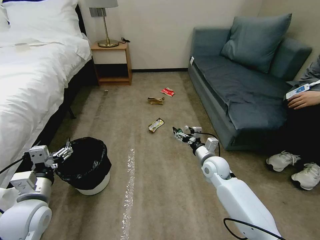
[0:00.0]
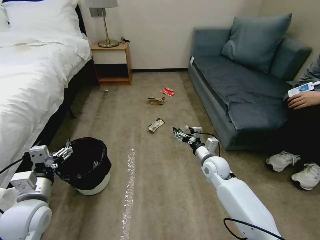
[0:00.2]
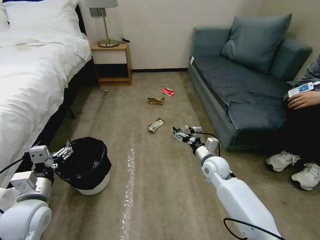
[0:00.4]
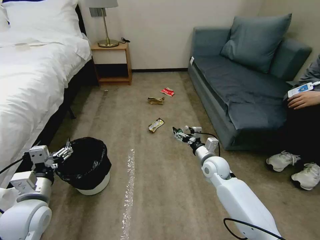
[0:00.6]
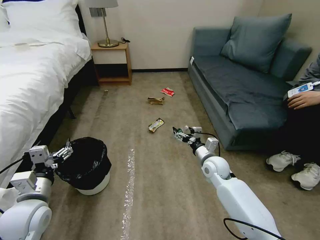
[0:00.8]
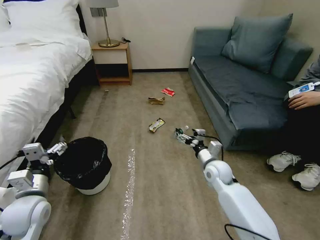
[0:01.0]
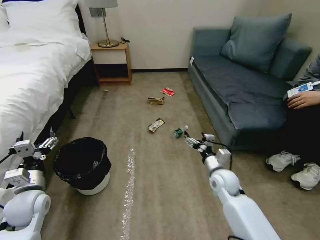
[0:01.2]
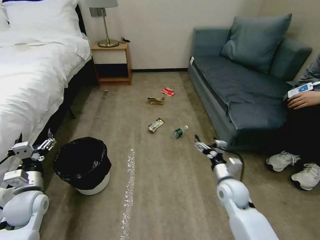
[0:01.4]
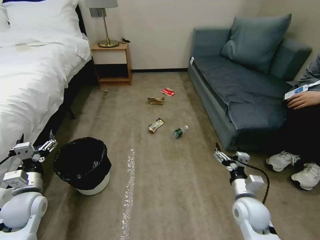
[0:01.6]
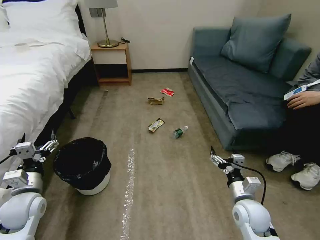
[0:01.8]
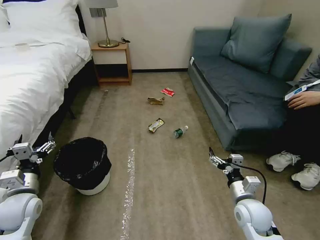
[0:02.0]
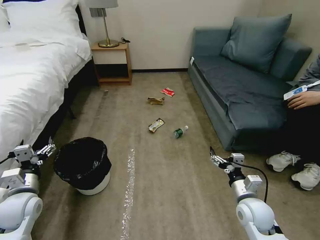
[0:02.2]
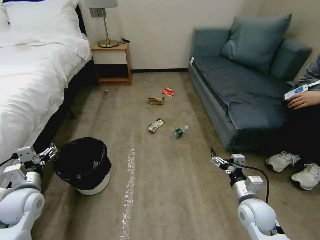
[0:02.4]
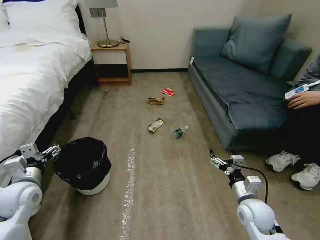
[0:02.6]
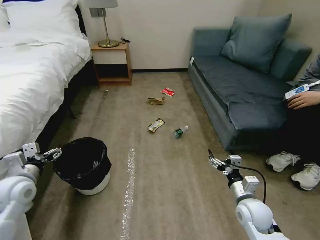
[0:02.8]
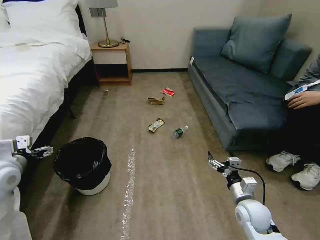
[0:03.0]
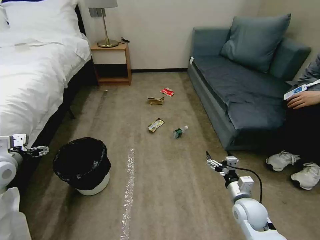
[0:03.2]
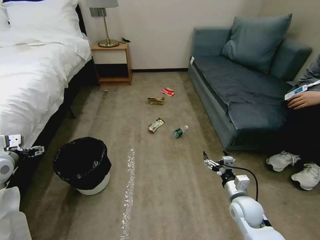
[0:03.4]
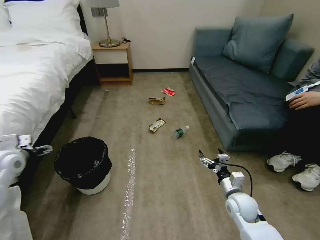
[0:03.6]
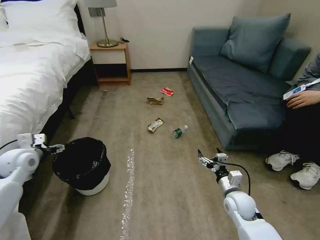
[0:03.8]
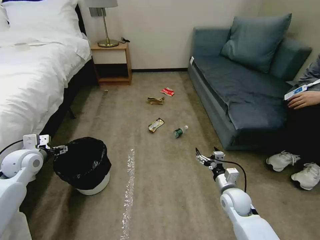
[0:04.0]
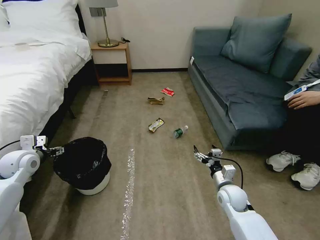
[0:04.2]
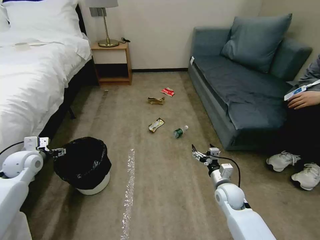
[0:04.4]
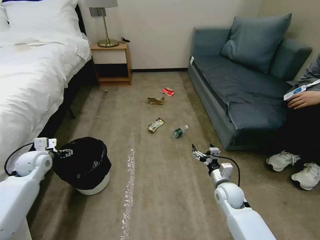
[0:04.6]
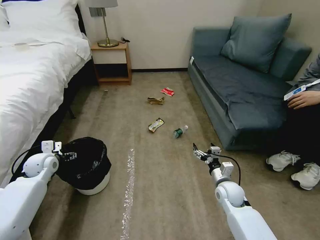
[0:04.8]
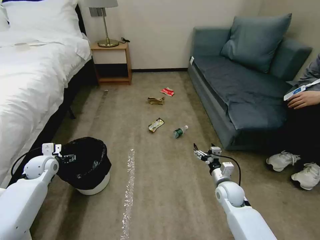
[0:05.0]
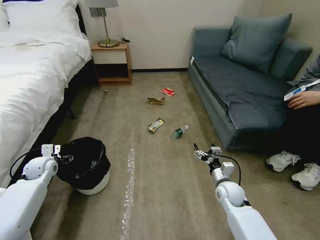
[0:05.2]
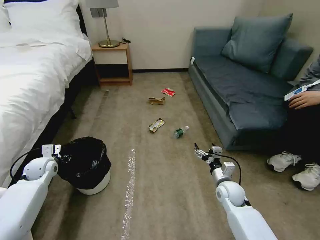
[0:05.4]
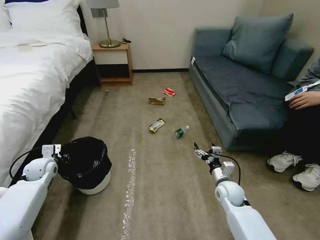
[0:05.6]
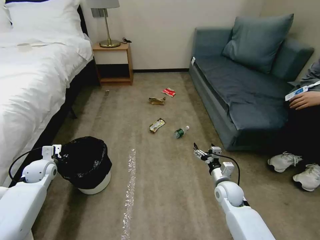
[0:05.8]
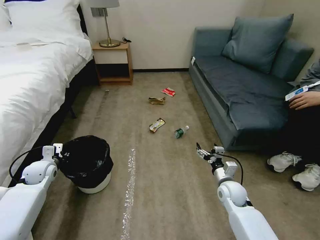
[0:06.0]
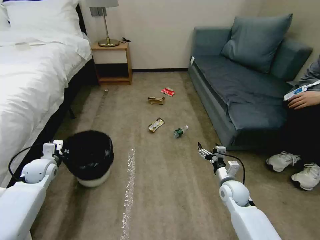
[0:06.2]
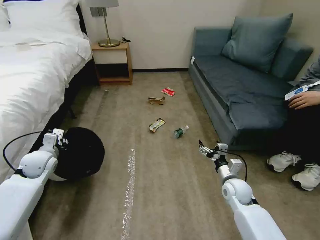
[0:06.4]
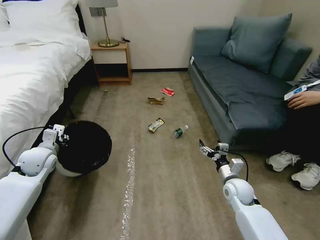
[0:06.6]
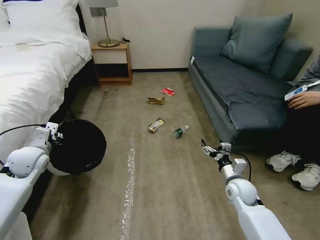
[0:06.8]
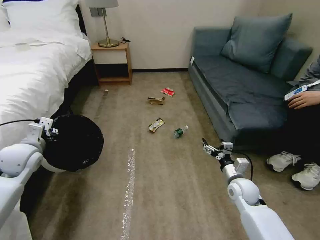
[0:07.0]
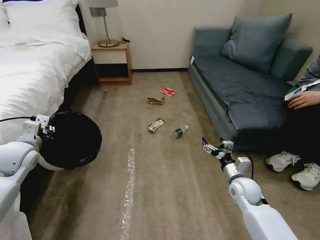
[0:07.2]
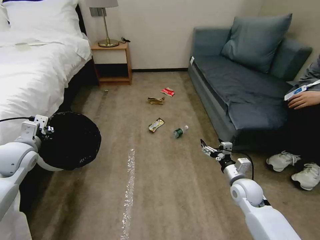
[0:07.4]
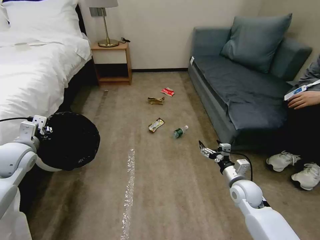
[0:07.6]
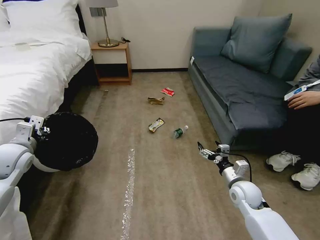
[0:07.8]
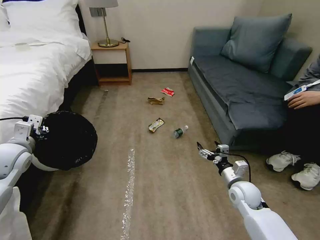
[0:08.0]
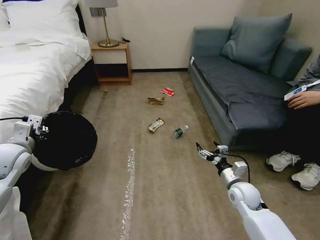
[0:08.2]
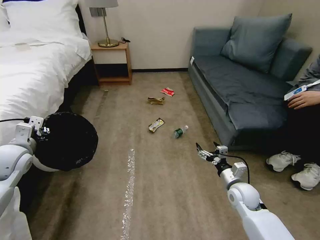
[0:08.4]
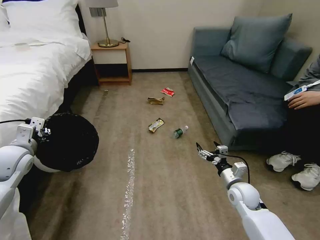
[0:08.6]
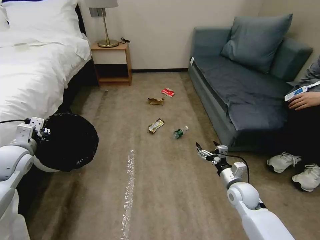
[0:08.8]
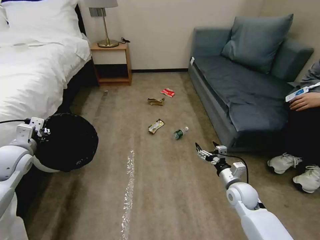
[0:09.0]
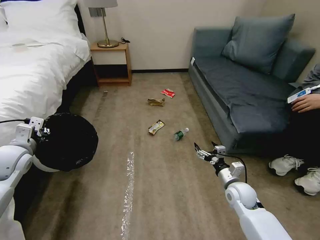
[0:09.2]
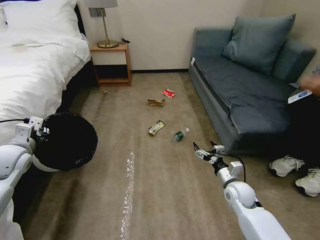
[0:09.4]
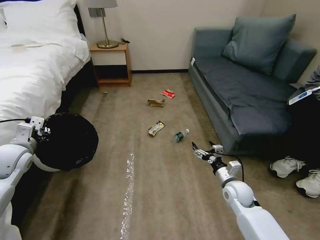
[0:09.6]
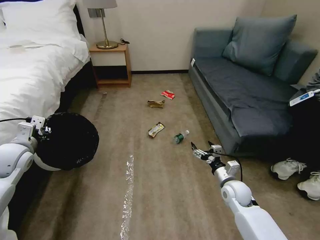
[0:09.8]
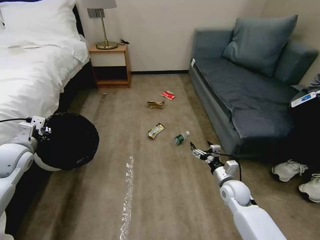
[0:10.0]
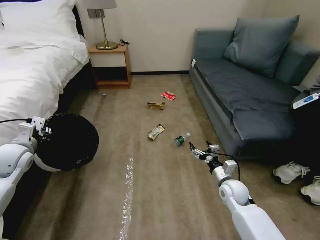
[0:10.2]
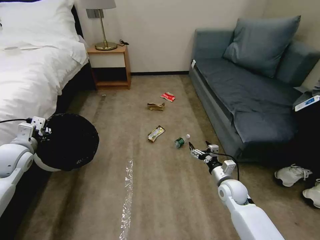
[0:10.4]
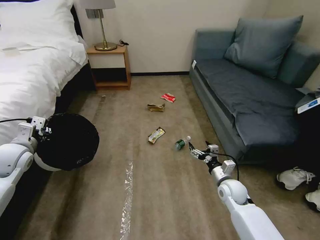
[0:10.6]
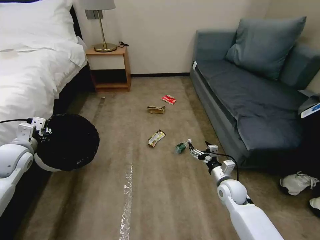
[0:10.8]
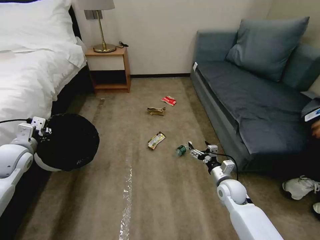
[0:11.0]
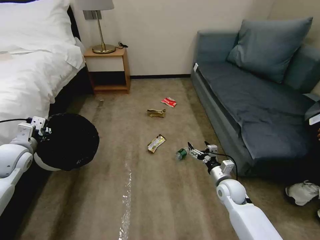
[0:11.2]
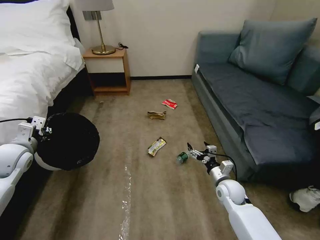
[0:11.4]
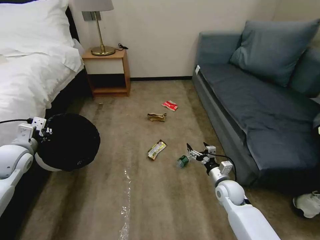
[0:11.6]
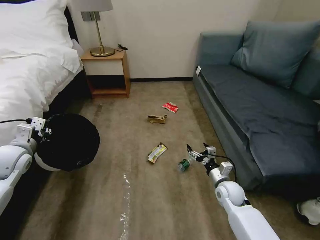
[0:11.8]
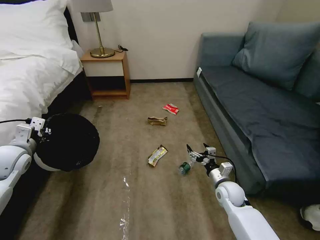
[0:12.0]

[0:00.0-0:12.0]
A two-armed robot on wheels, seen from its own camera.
Task of the whole recording: Pick up the trash bin, then pick up the garbage on the floor and place it into the trash bin.
0:01.6 to 0:03.0: The left gripper shifts some 10 cm upward.
0:03.0 to 0:04.4: The left gripper shifts about 10 cm forward and downward. The right gripper moves forward, about 5 cm.
0:04.4 to 0:06.0: The left gripper heads downward, covering about 10 cm, and closes its fingers.
0:06.0 to 0:07.6: The right gripper changes place by some 5 cm; the left gripper heads upward, covering roughly 15 cm.
0:07.6 to 0:10.4: The grippers move only a little.

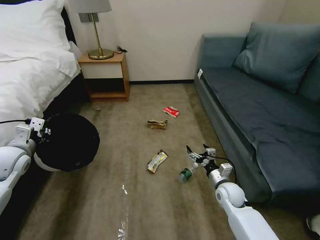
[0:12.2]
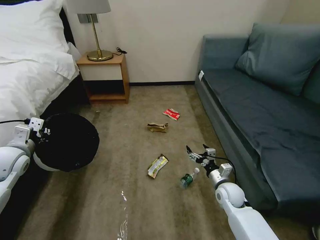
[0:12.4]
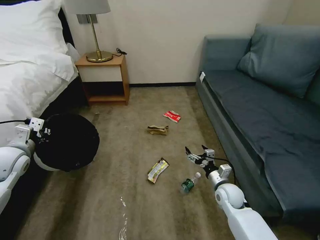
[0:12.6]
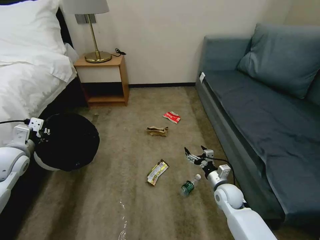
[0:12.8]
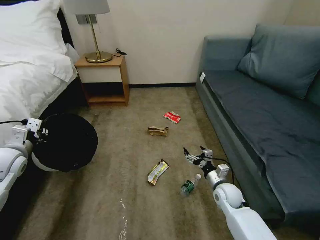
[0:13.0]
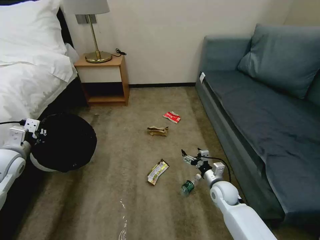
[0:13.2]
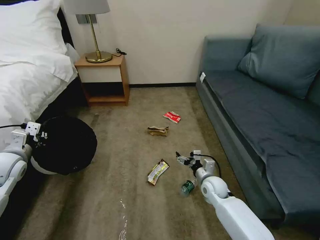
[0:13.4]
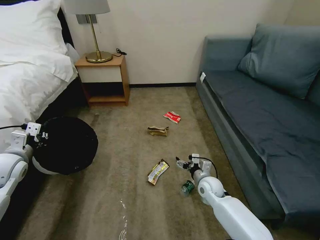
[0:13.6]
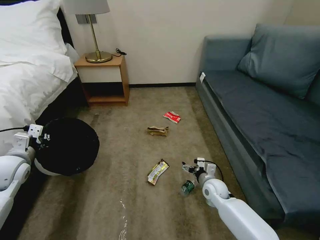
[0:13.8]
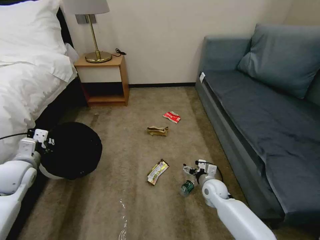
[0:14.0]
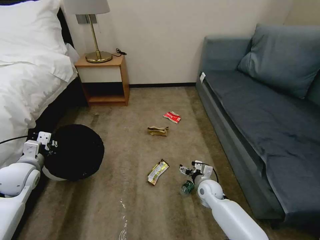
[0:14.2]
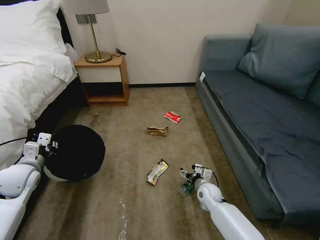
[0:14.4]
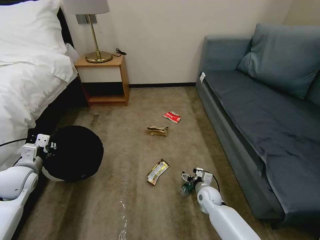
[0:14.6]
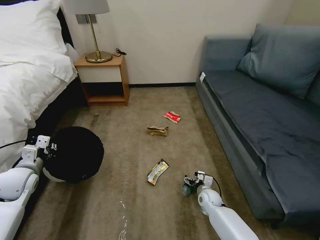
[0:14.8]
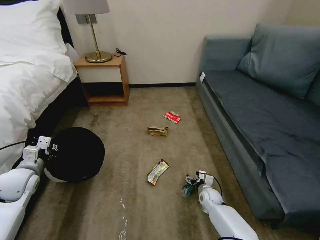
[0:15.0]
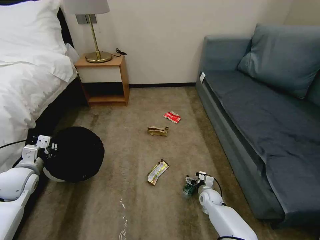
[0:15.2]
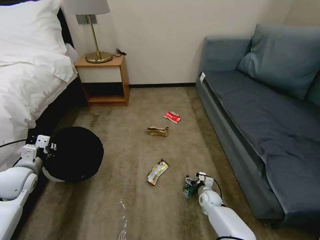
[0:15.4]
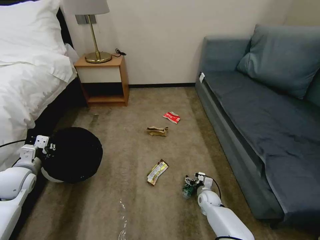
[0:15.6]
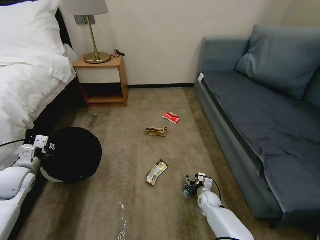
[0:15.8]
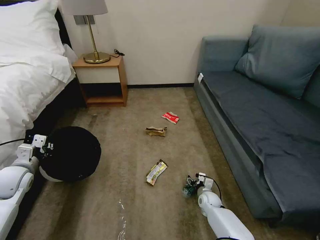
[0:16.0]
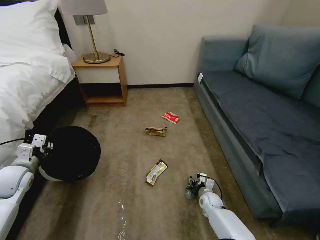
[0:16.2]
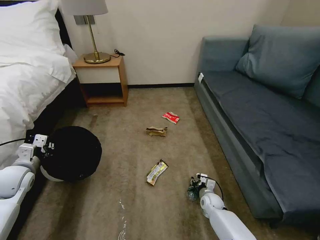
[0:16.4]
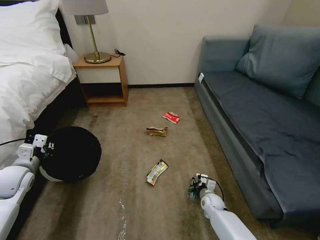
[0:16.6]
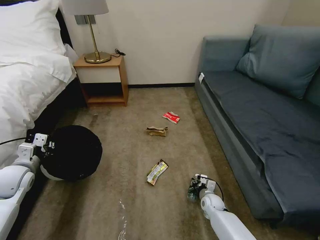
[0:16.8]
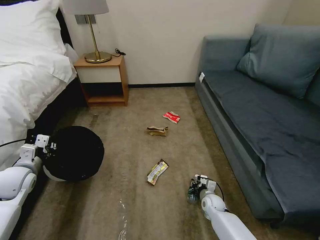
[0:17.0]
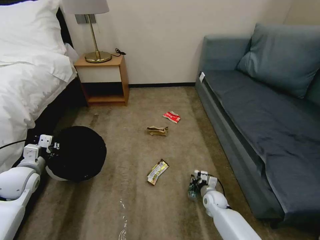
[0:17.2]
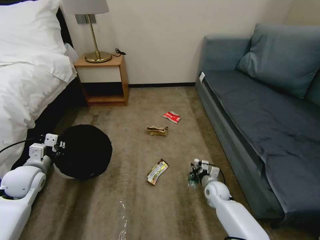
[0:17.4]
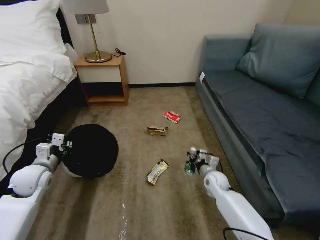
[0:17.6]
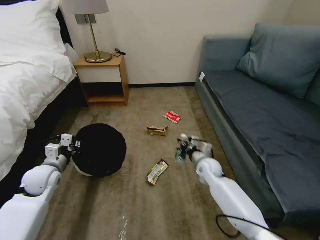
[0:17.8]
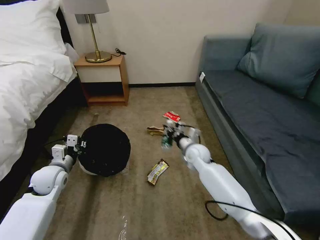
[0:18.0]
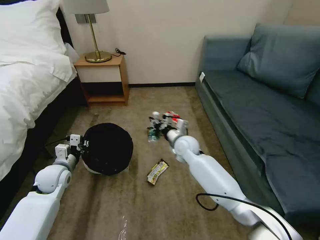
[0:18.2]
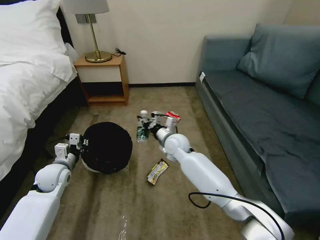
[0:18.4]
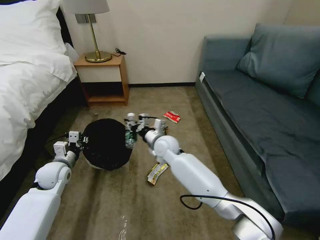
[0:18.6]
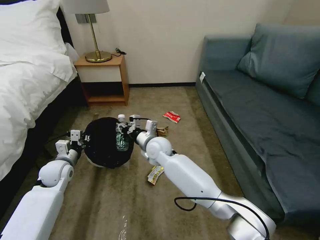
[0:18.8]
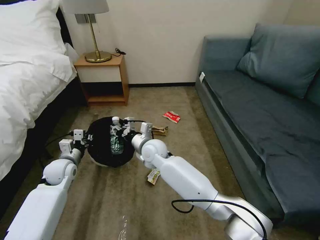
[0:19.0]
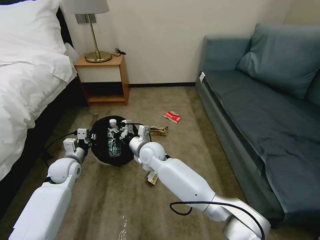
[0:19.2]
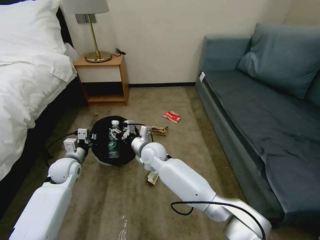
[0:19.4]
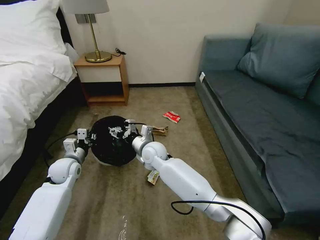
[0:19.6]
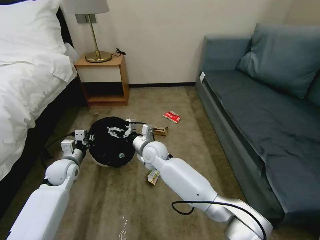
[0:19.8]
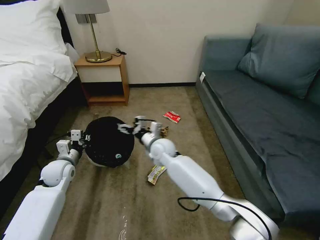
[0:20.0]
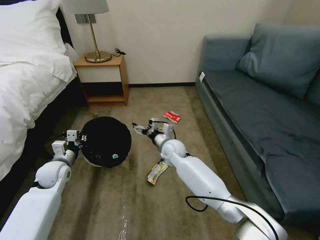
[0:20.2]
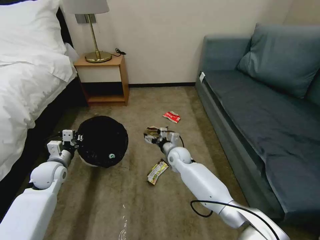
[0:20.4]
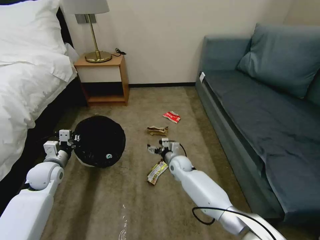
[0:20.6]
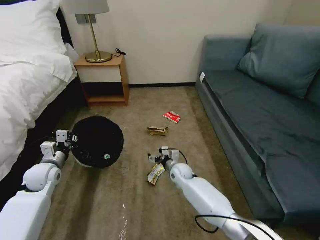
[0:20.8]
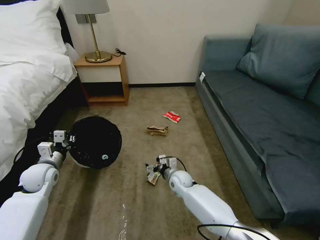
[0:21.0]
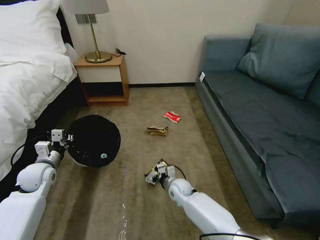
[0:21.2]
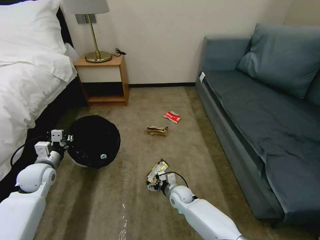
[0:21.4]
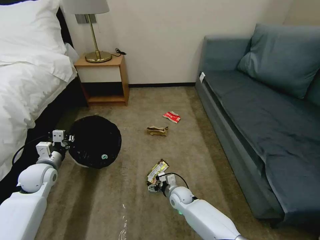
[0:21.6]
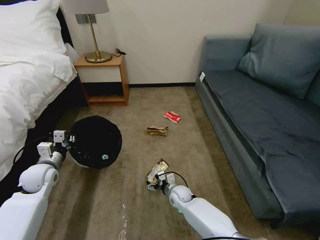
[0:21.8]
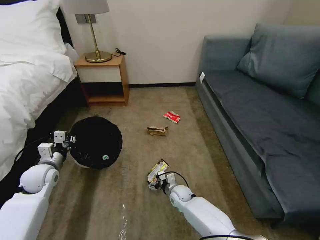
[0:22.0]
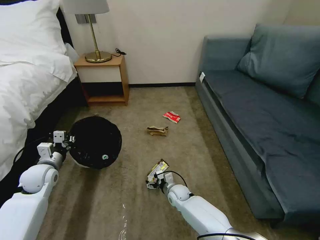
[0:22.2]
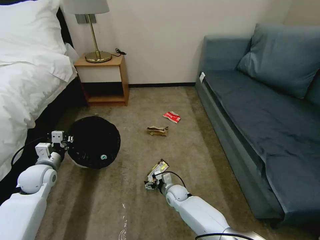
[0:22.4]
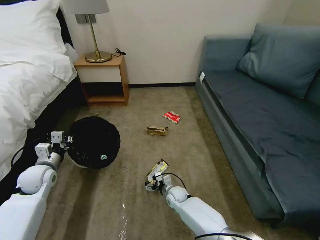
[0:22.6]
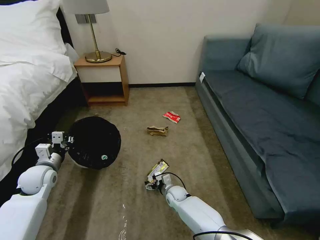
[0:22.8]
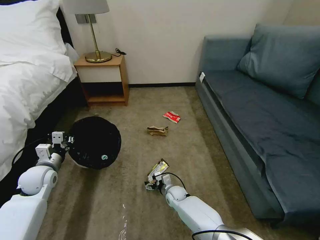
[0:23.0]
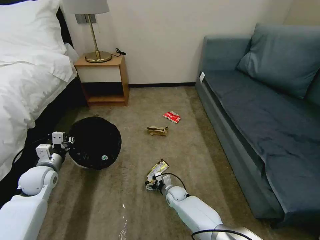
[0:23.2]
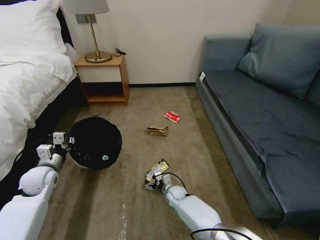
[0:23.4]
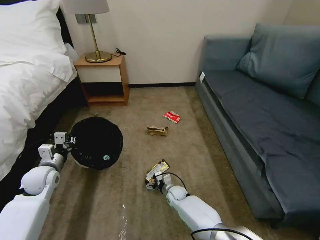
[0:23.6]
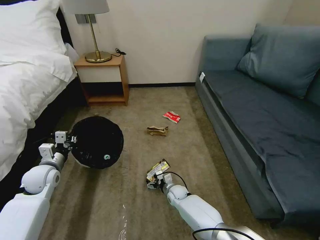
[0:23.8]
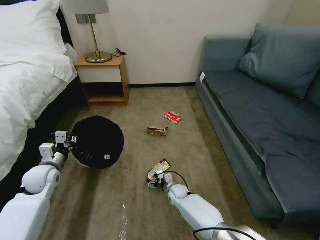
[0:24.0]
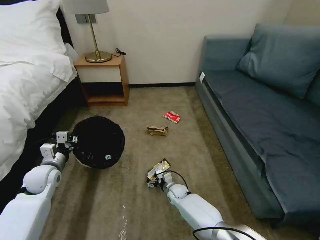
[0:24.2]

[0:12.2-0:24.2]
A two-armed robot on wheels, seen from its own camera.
Task of the whole recording: Pick up the trash bin, then pick up the garbage on the floor and place it into the trash bin.
0:12.2 to 0:13.8: The right gripper moves approximately 5 cm.
0:13.8 to 0:15.2: The left gripper is displaced downward by some 5 cm. The right gripper shifts some 10 cm downward.
0:15.2 to 0:16.6: The right gripper closes up.
0:16.6 to 0:18.2: The left gripper travels to the right by some 10 cm; the right gripper is displaced upward, to the left and forward by about 35 cm.
0:18.2 to 0:19.8: The right gripper shifts approximately 10 cm to the left, and opens.
0:19.8 to 0:21.2: The right gripper moves downward, to the right and backward, some 25 cm. The left gripper moves to the left, approximately 5 cm.
0:21.2 to 0:22.6: The right gripper heads downward, covering approximately 5 cm.
0:22.6 to 0:24.2: The grippers move only a little.
